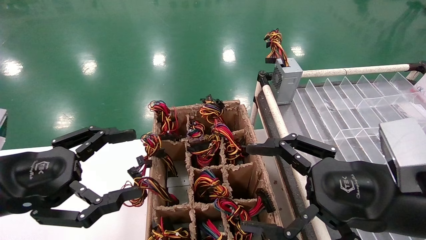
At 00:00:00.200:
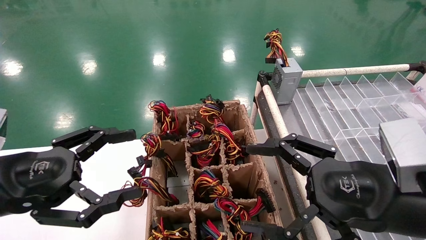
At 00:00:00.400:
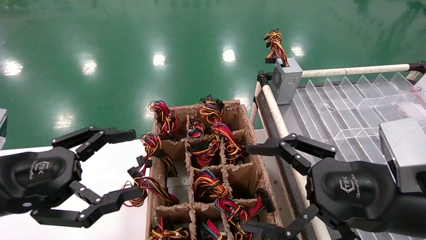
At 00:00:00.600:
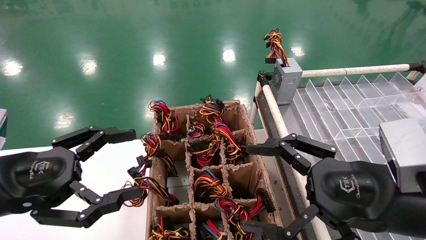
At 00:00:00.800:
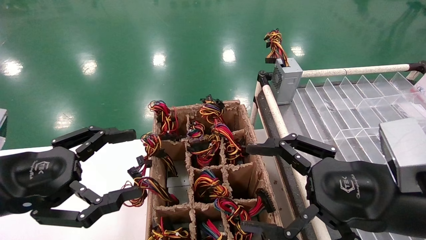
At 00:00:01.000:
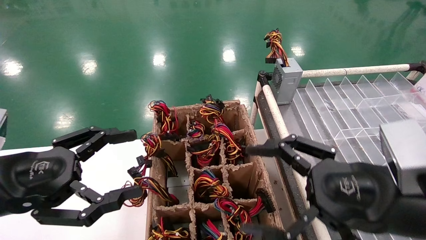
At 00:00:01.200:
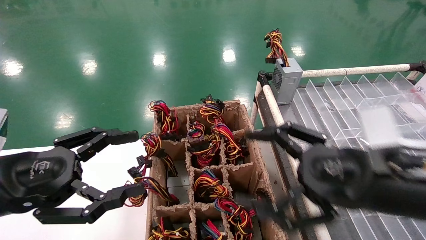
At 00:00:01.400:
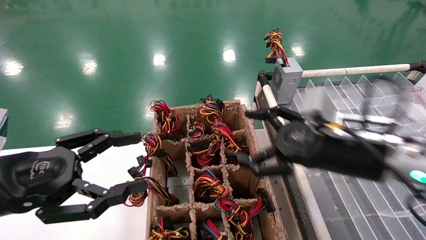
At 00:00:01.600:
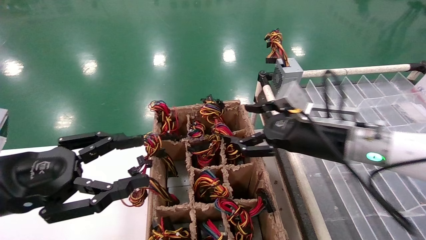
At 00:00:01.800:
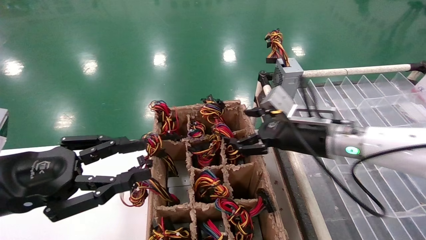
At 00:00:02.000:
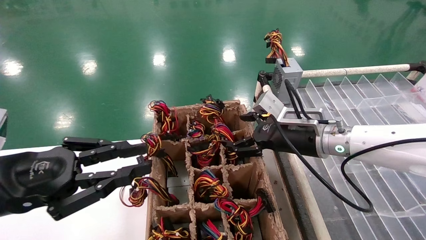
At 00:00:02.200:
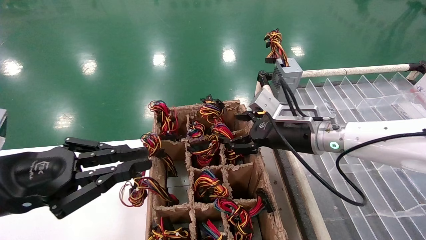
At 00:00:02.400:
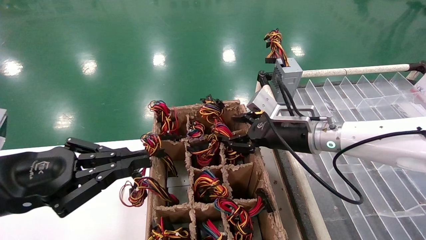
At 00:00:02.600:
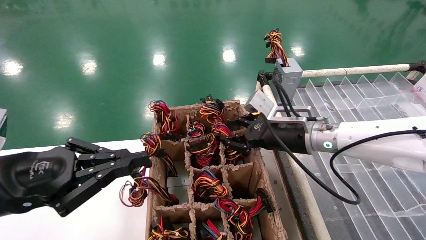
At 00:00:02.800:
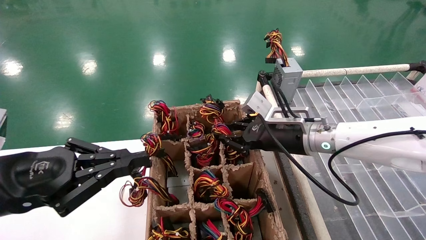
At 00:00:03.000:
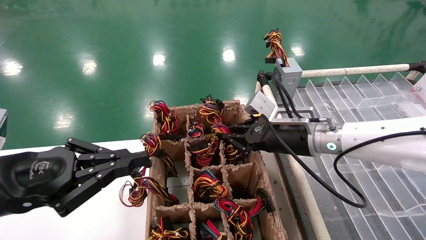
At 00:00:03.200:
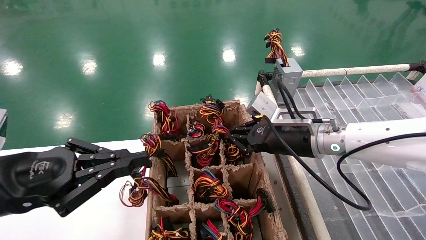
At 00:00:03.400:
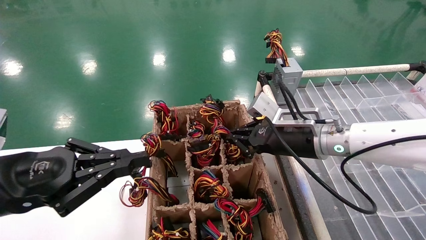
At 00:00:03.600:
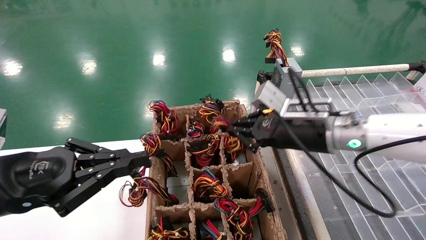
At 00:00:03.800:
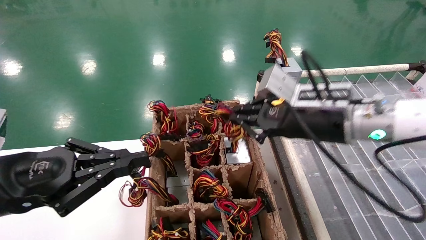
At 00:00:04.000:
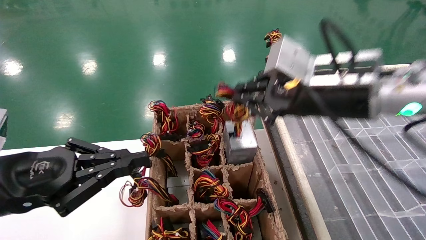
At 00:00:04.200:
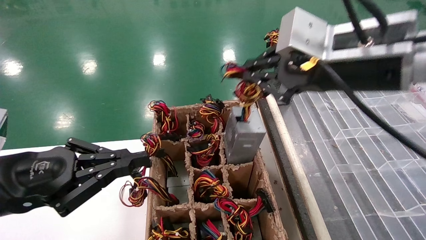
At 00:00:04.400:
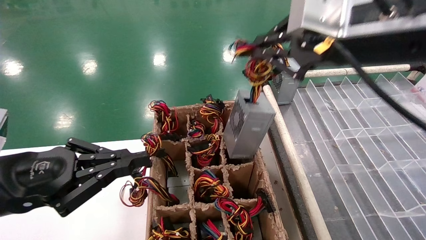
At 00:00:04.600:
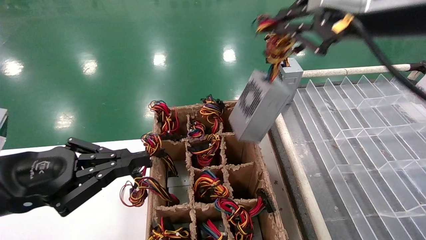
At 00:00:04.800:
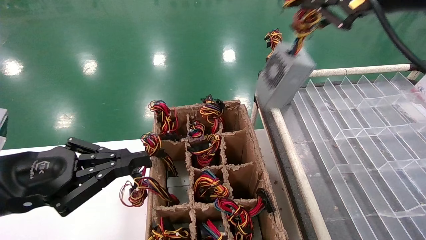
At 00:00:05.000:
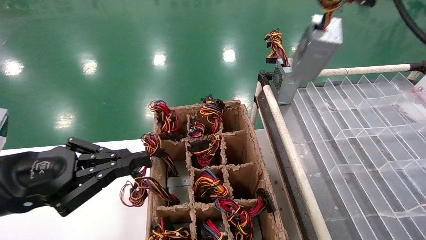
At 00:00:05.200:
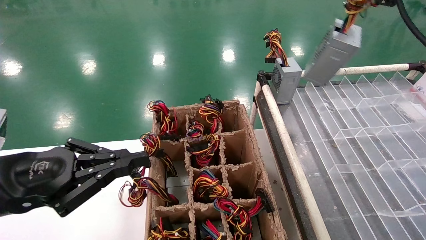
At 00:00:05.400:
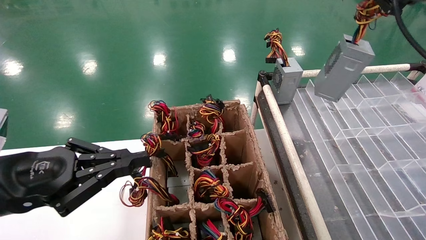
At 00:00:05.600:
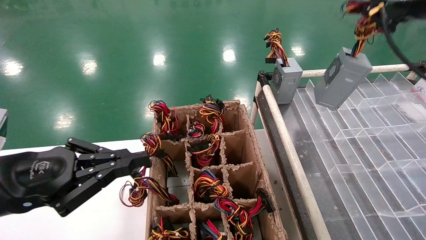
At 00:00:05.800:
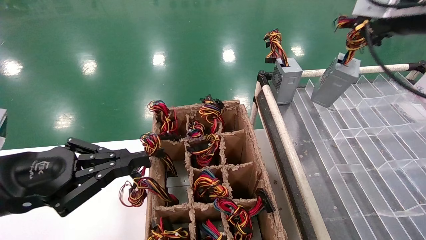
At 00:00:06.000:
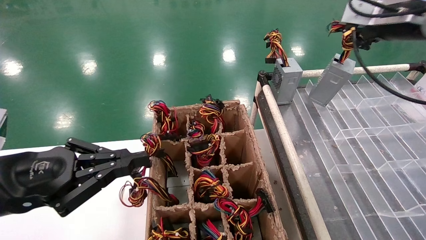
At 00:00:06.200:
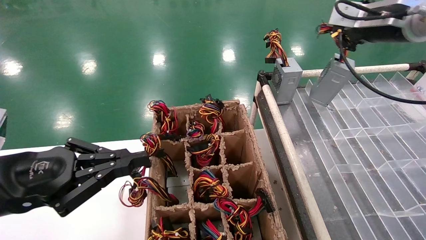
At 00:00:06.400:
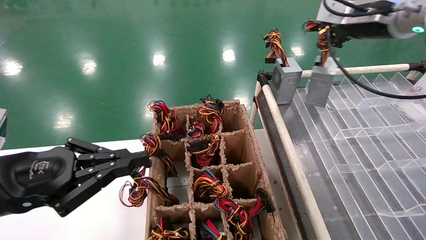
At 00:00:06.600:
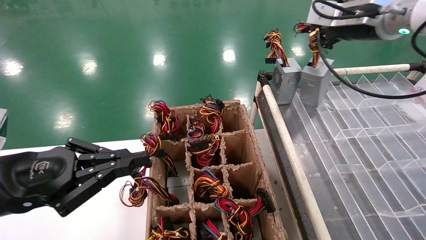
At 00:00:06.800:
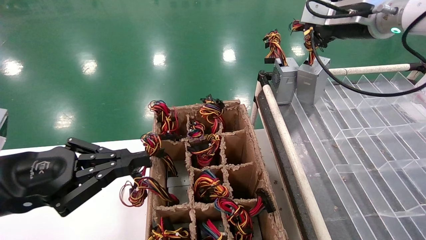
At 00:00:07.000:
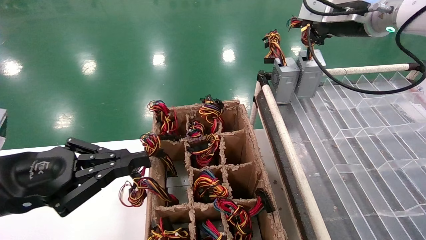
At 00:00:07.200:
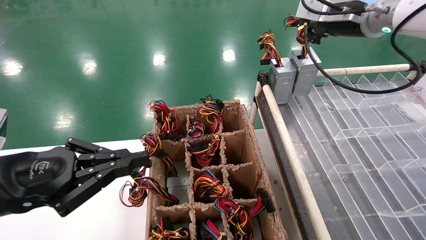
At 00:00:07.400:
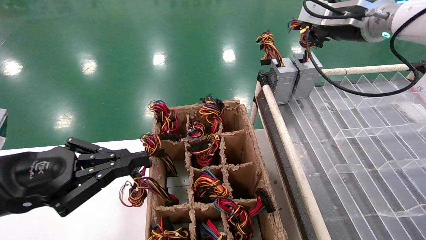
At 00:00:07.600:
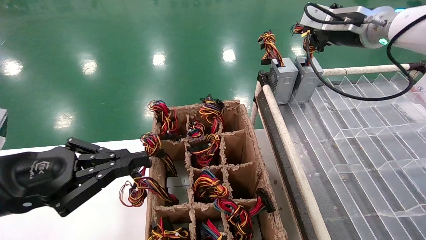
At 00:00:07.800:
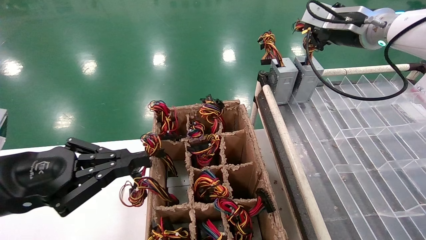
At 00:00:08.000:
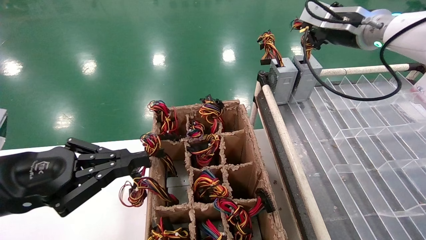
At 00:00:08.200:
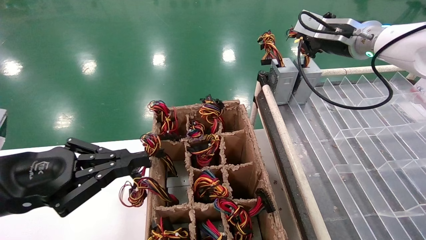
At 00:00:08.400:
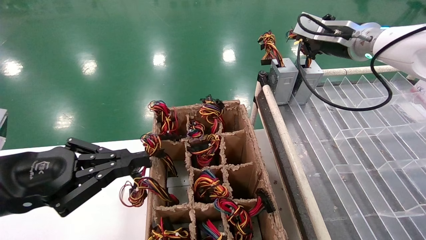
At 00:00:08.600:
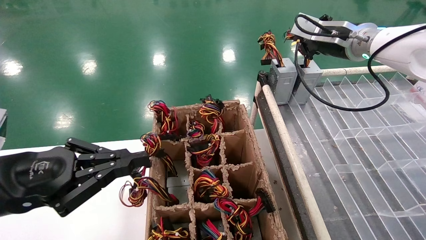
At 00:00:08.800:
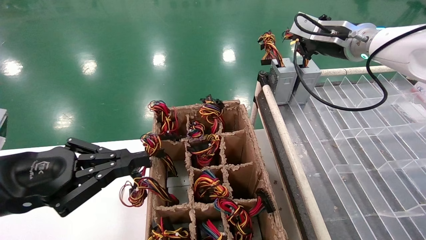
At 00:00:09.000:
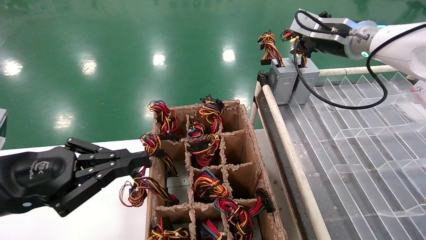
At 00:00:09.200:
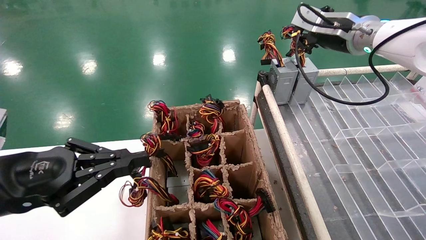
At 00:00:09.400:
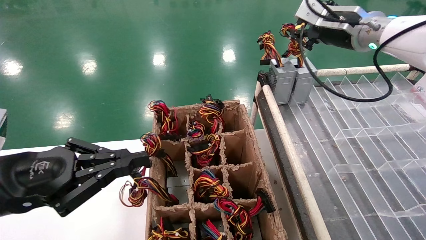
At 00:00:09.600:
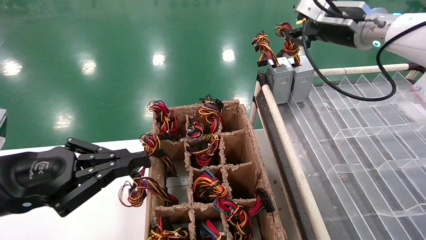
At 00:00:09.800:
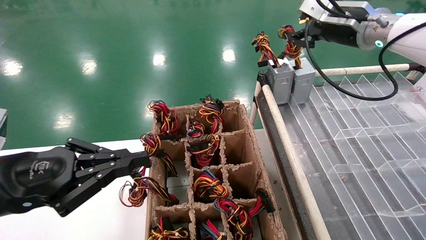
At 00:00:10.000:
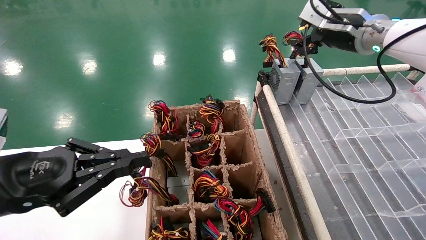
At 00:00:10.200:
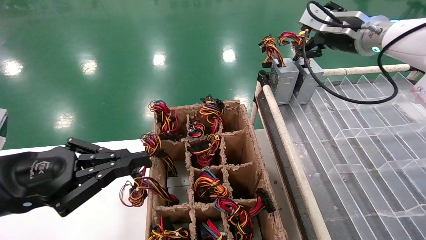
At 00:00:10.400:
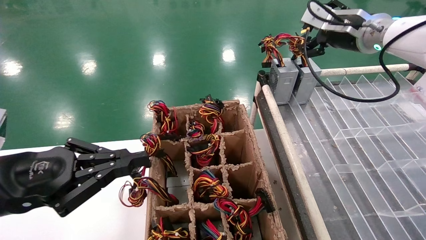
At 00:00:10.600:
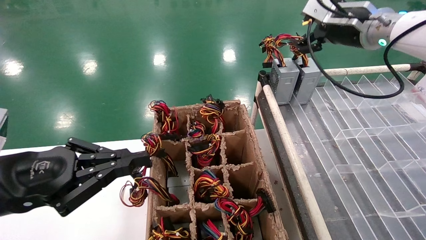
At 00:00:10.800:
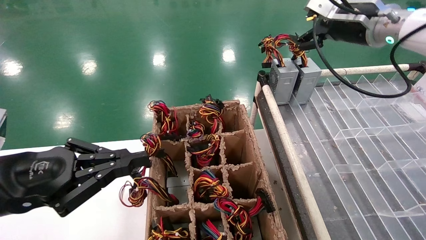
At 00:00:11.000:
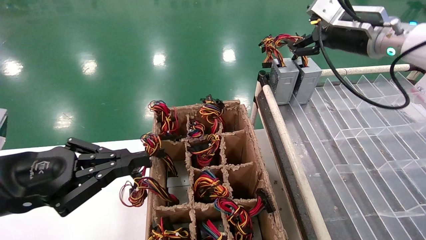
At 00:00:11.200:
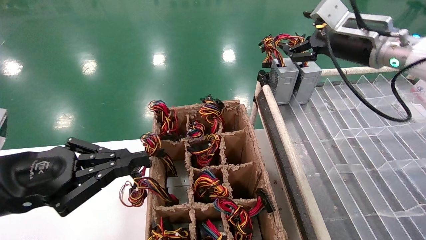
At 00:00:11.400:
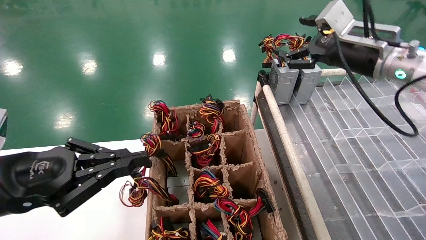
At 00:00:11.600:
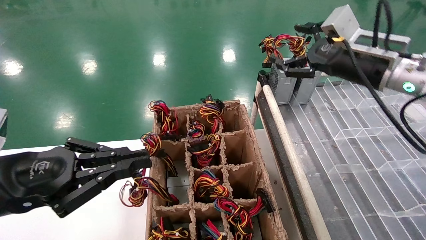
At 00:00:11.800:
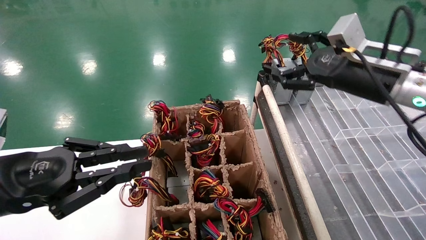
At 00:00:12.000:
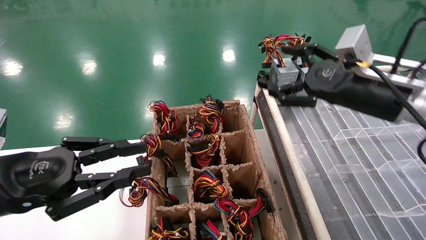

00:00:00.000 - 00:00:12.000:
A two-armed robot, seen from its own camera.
Step, 00:00:01.400 - 00:00:03.400: Grab the main unit power supply from the containment box.
Step, 00:00:03.600 - 00:00:10.800: Place the main unit power supply in the designated area.
00:00:00.000 - 00:00:01.600: The right gripper heads forward, covering about 15 cm.
00:00:01.600 - 00:00:03.000: The right gripper ends up roughly 5 cm from where it was, and closes. Meanwhile the left gripper closes up.
00:00:03.000 - 00:00:04.400: The right gripper is displaced upward and backward by about 25 cm.
00:00:04.400 - 00:00:06.000: The right gripper heads to the right and forward, covering about 20 cm.
00:00:06.000 - 00:00:07.600: The right gripper goes approximately 5 cm forward.
00:00:07.600 - 00:00:09.000: The grippers move only a little.
00:00:09.000 - 00:00:10.400: The right gripper opens.
00:00:10.400 - 00:00:12.000: The right gripper goes about 15 cm backward and downward.

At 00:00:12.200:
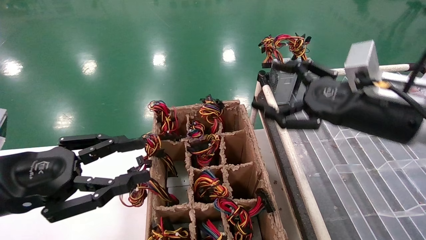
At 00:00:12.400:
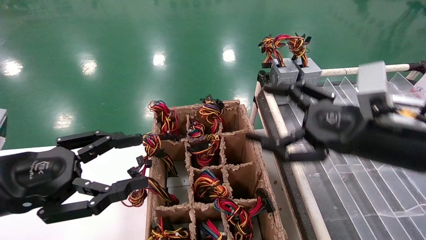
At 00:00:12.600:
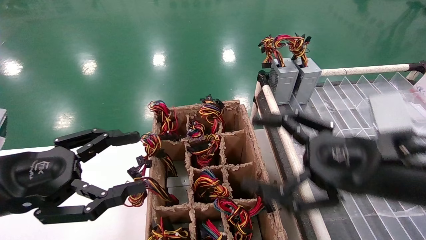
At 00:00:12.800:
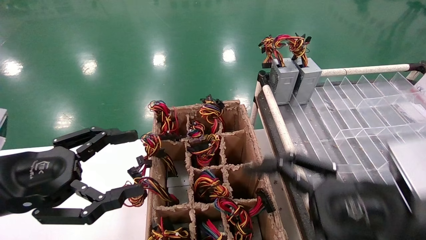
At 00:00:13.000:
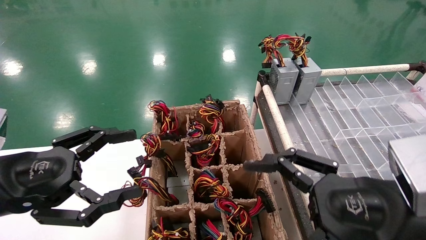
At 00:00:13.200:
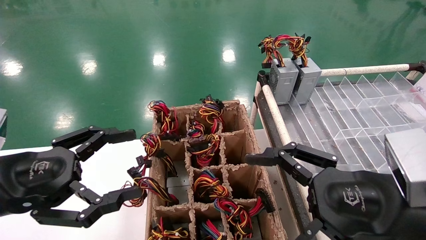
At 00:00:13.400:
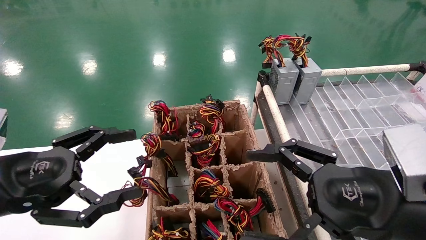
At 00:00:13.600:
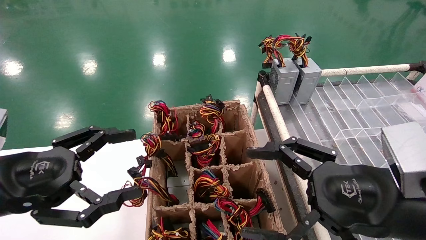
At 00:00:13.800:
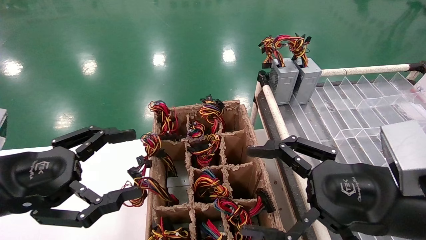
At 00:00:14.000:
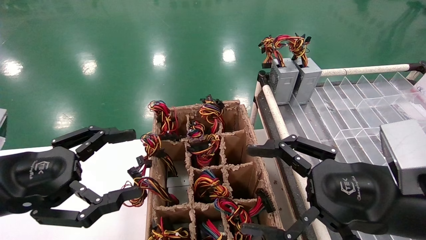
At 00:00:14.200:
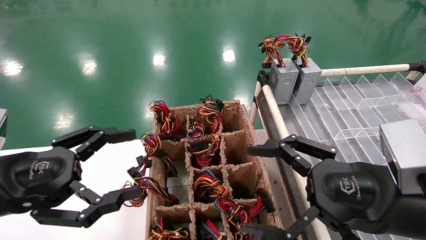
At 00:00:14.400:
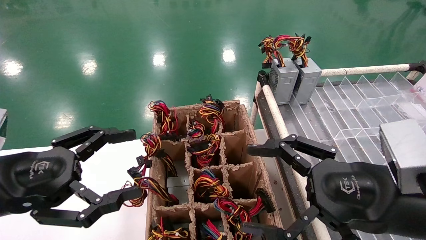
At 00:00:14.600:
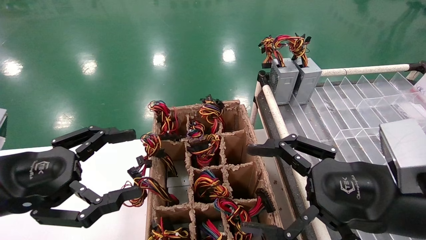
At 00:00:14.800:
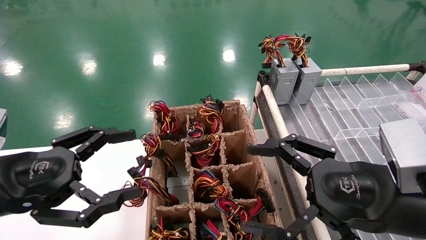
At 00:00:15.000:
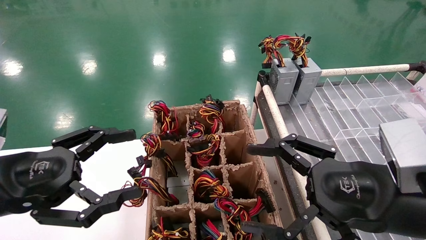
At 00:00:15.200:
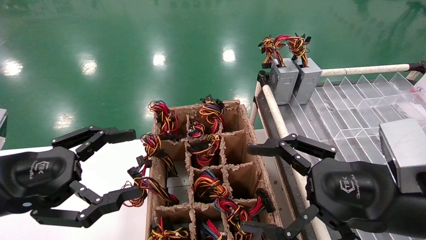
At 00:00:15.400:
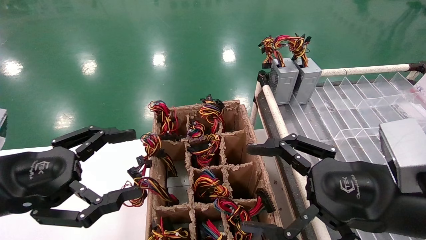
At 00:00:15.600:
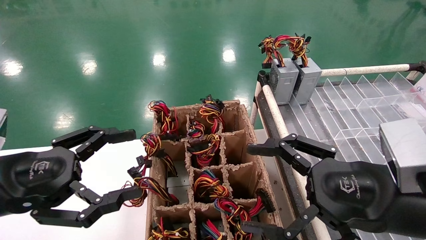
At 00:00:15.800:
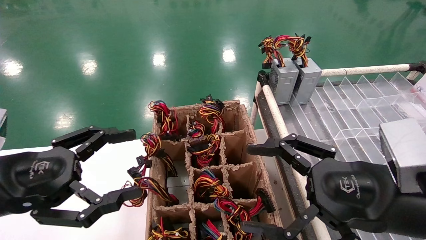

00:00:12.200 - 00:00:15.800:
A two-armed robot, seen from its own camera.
00:00:12.200 - 00:00:14.000: The right gripper heads backward and downward, covering approximately 10 cm, while the left gripper opens.
00:00:14.000 - 00:00:15.800: Both grippers stay put.
